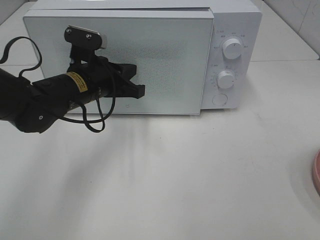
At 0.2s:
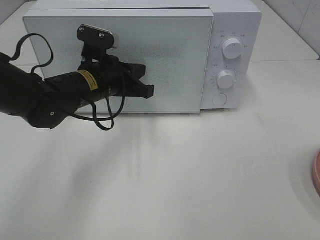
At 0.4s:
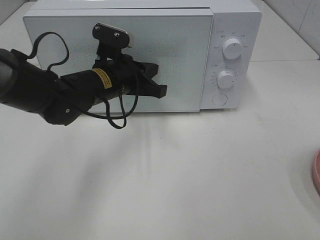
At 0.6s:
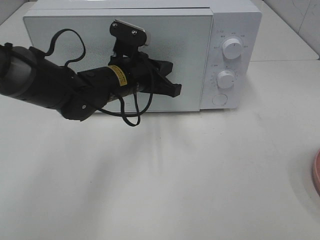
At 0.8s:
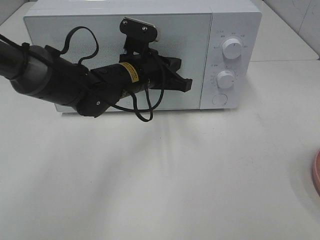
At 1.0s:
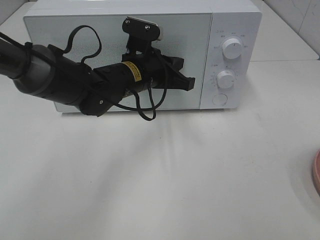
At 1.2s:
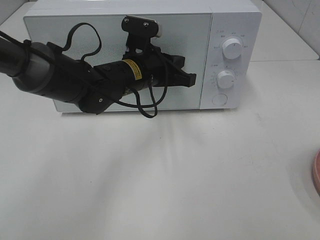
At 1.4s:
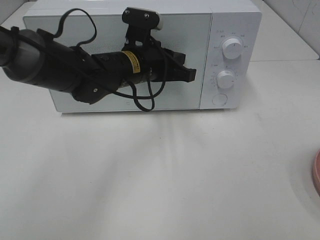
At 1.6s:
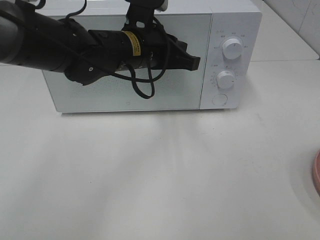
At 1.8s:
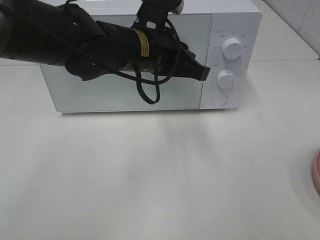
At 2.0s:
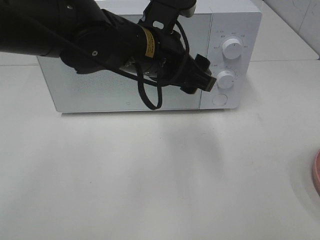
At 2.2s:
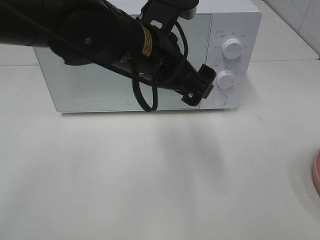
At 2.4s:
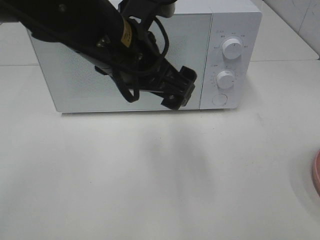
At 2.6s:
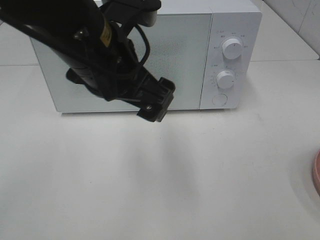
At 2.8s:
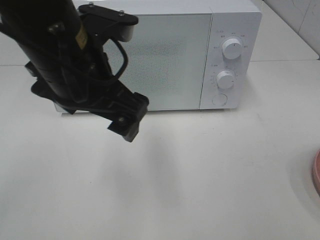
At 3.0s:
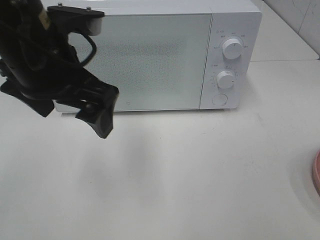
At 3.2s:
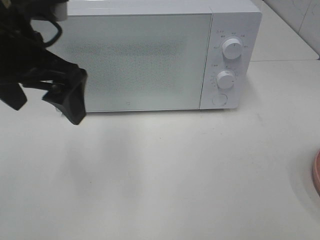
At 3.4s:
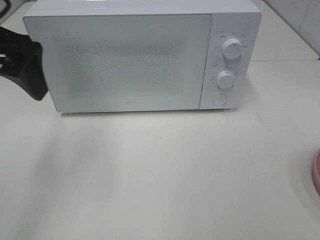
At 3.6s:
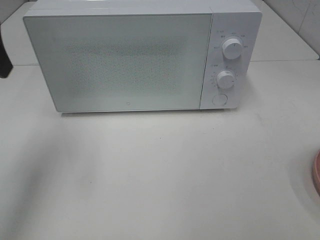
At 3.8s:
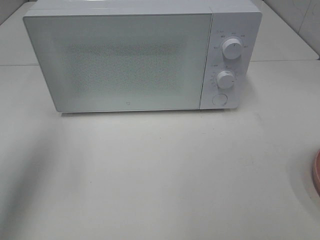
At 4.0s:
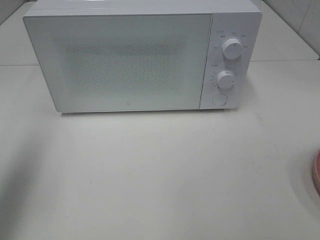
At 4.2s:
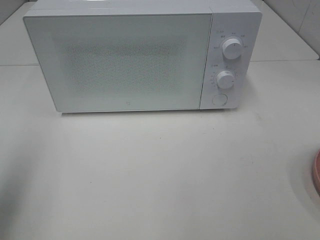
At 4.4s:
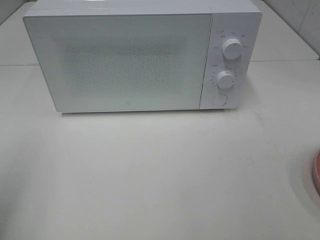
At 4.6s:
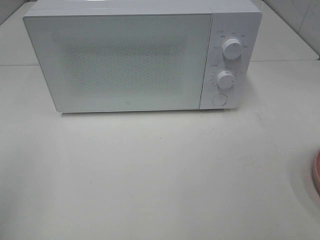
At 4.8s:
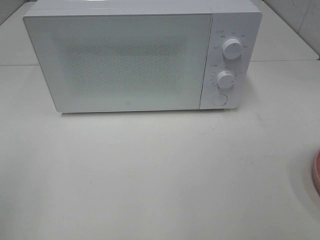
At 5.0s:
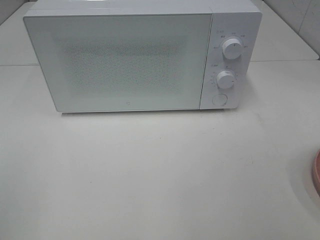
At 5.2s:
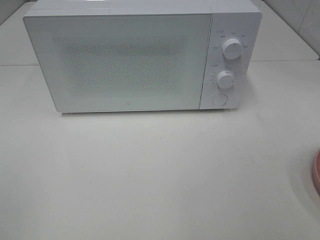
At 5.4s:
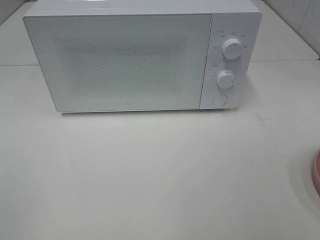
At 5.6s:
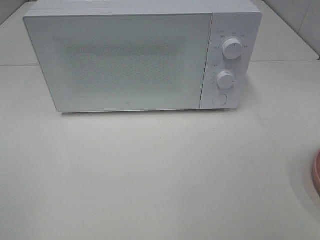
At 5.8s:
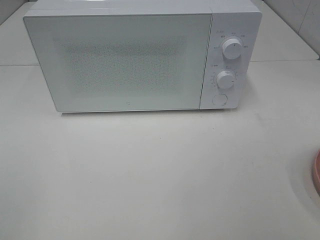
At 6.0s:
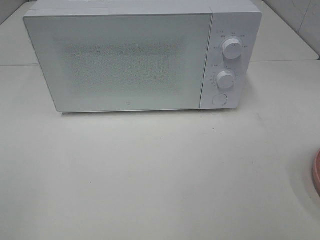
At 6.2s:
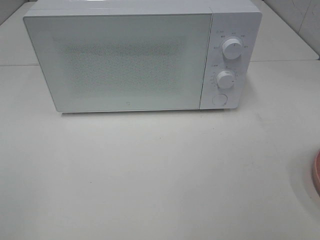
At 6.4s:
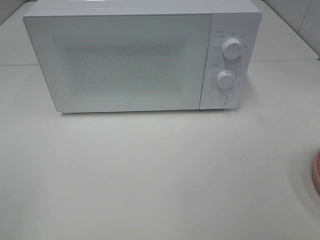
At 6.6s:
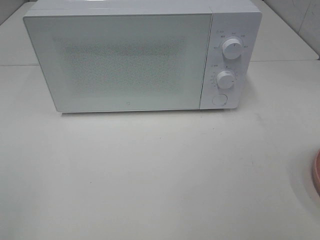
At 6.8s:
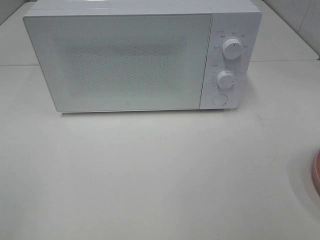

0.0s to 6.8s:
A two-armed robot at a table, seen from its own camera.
Task of the whole recording: Heat the burger.
0.0s to 1.4s: The left gripper heads to the right, covering about 10 cm.
1.4s to 2.8s: The left gripper heads backward, upward and to the left, covering roughly 15 cm, and opens up.
2.8s to 4.0s: The left gripper moves to the left, roughly 25 cm.
4.0s to 5.4s: The left gripper shifts approximately 20 cm backward.

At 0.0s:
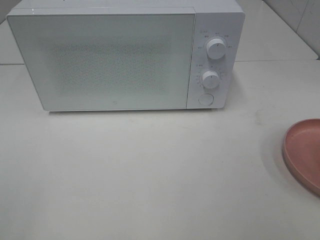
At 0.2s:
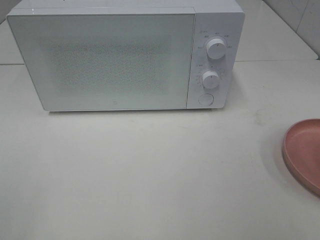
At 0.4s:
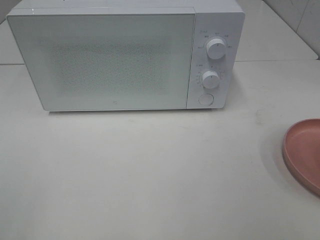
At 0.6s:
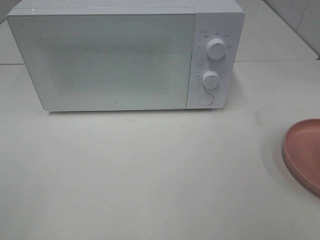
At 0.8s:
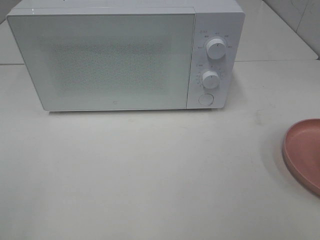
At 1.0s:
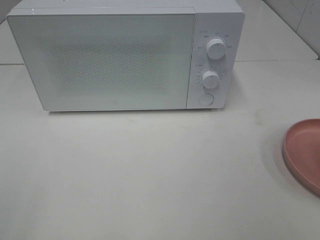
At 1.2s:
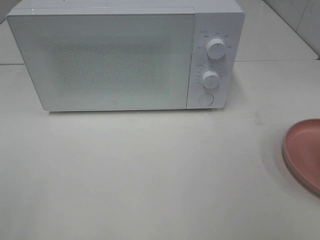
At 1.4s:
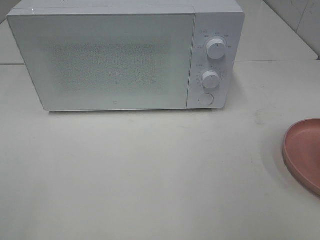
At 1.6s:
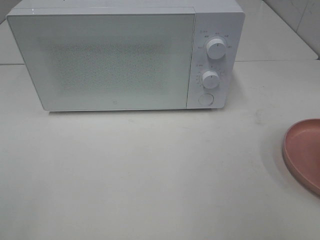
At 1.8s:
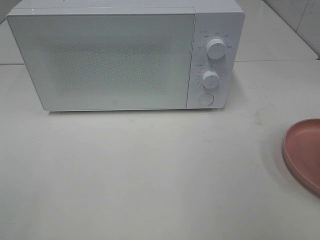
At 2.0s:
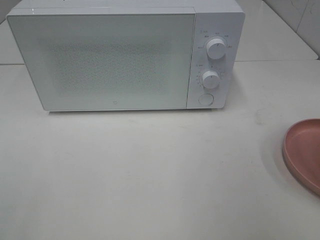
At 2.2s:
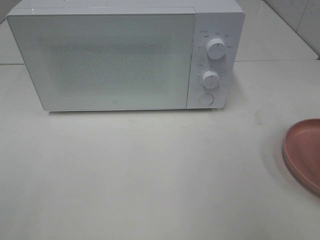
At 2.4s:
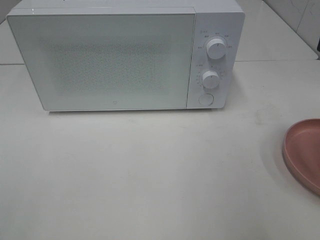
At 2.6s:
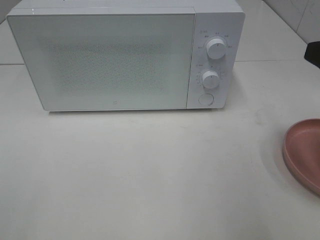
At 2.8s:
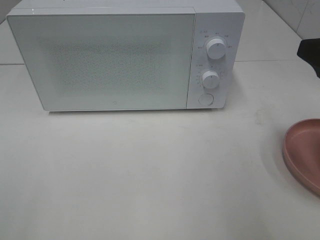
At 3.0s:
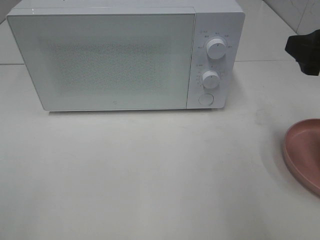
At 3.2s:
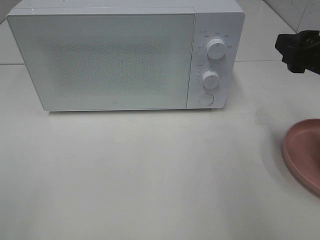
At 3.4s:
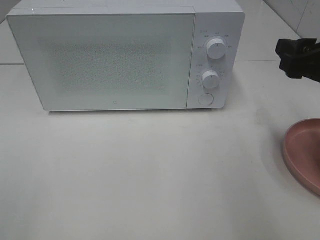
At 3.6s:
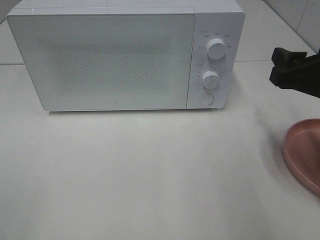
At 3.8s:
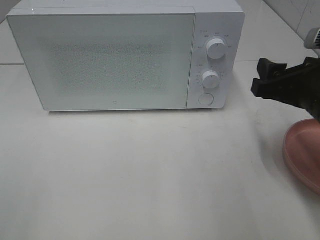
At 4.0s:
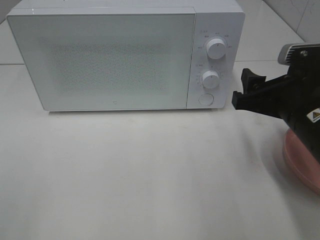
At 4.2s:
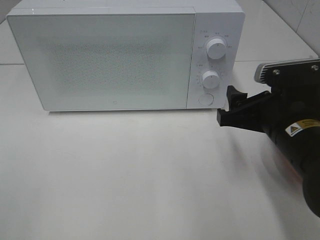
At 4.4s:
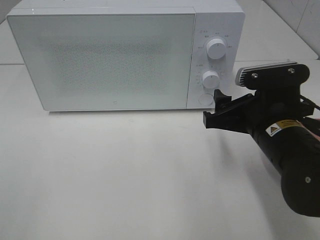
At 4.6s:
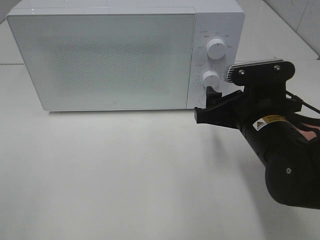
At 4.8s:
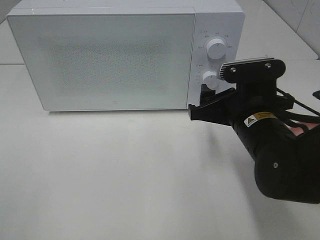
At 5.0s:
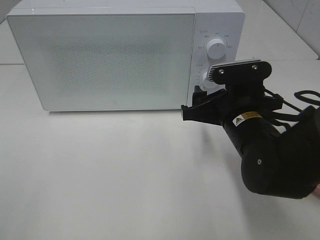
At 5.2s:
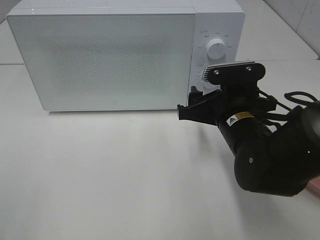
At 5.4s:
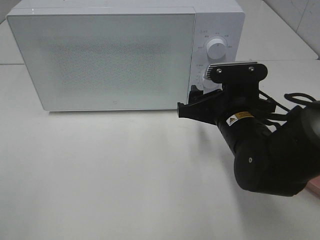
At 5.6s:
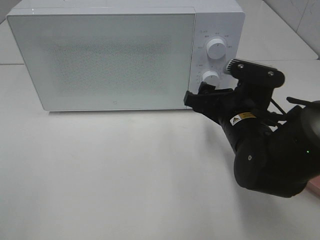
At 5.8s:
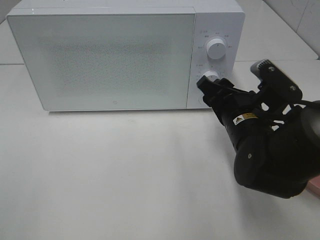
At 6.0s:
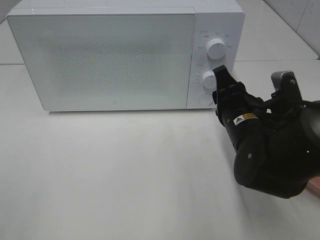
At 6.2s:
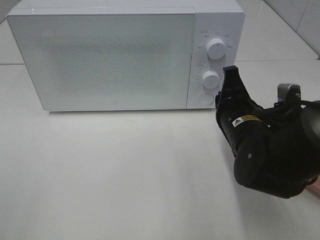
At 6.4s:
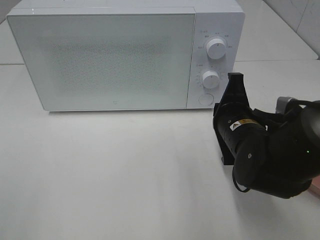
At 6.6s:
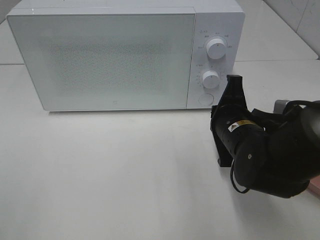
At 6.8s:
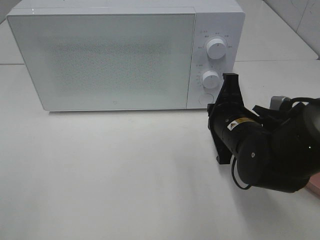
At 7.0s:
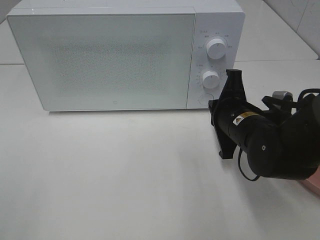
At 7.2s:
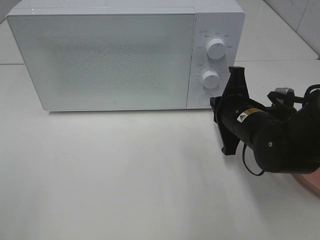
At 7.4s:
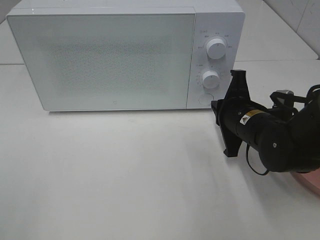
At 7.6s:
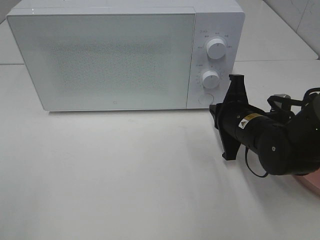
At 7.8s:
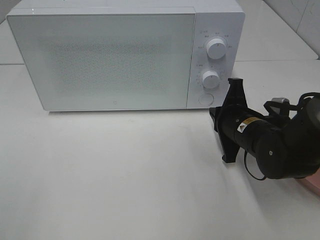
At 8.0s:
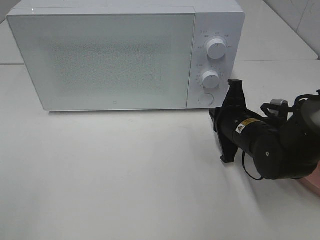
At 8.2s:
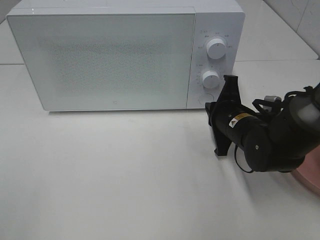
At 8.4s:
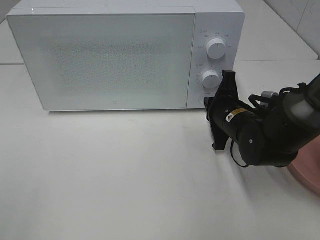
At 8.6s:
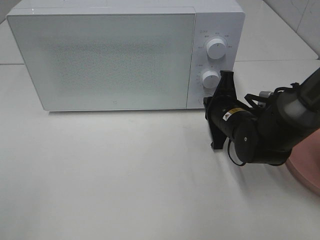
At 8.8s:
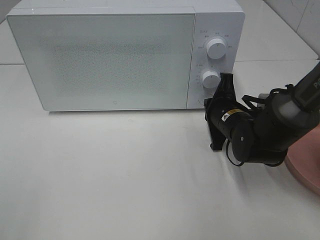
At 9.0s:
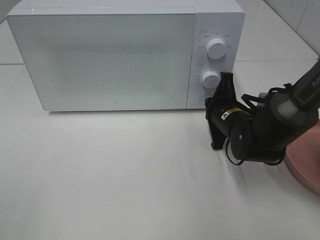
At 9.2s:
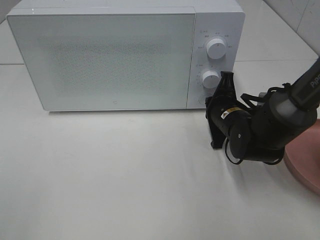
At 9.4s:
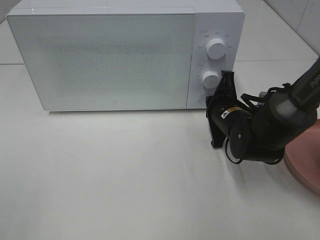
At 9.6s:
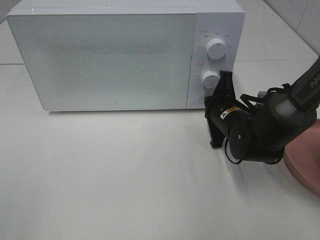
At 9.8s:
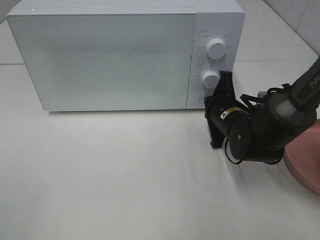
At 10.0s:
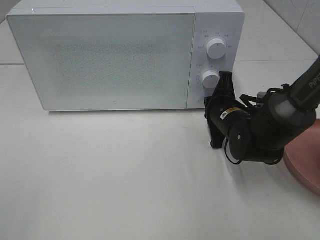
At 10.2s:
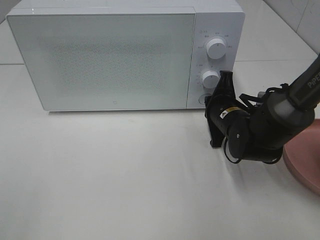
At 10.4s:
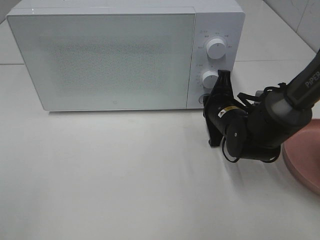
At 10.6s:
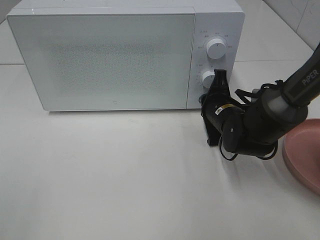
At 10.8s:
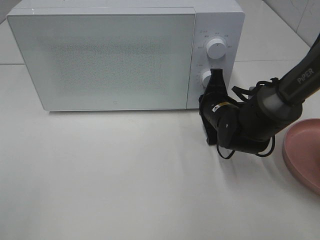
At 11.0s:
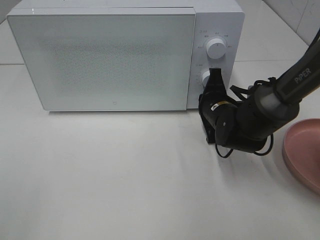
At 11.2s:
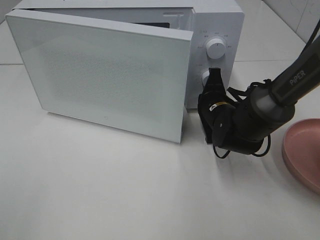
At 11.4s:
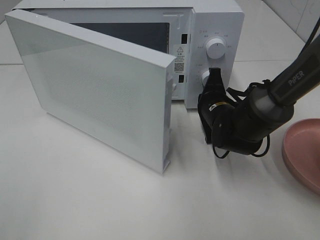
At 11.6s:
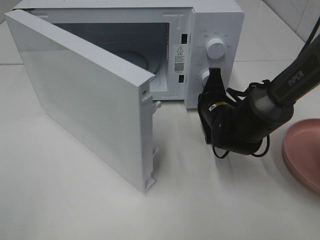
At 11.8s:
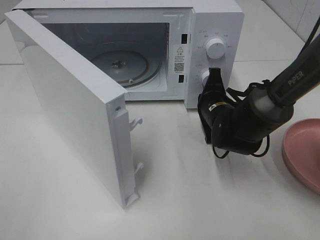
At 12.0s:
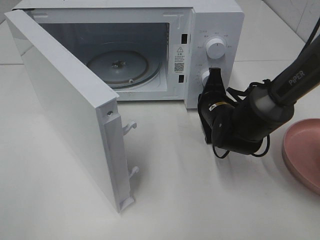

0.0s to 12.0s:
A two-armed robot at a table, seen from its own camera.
Task of the whole recording: Heat the burger.
1.6s to 3.0s: The right gripper shifts approximately 15 cm forward.
3.0s to 4.4s: The right gripper moves downward and to the left, about 15 cm.
4.4s to 6.0s: The right gripper closes up.
6.0s to 7.6s: The right gripper closes up.
7.6s to 9.0s: The right gripper moves approximately 5 cm.
9.0s to 10.4s: Neither gripper changes place.

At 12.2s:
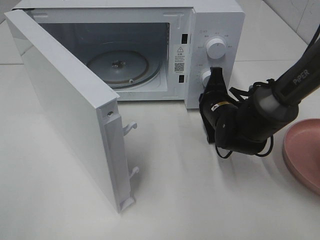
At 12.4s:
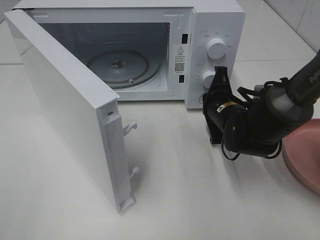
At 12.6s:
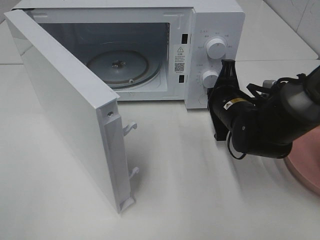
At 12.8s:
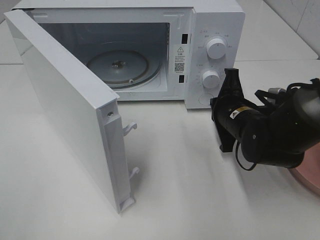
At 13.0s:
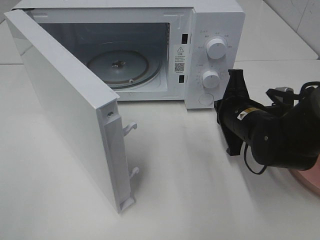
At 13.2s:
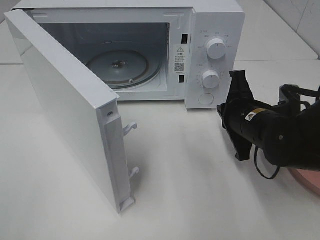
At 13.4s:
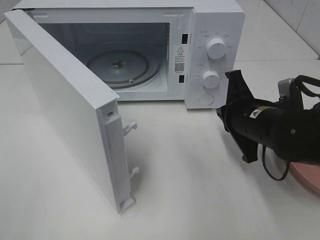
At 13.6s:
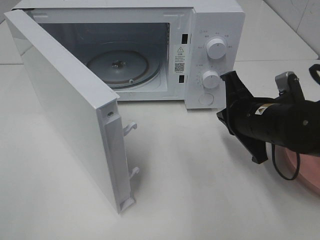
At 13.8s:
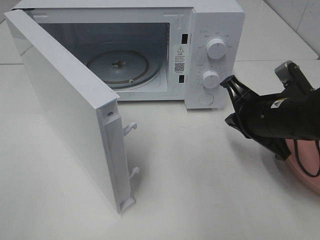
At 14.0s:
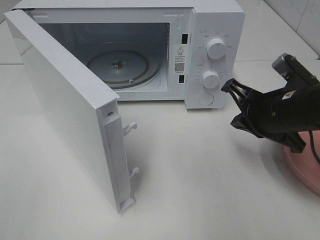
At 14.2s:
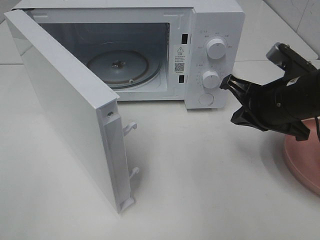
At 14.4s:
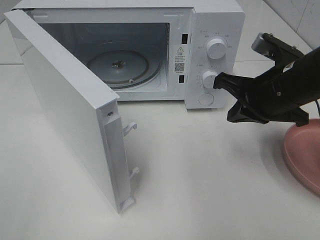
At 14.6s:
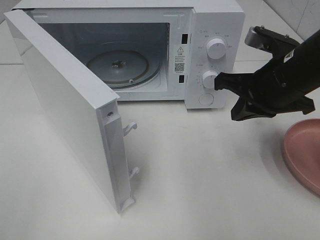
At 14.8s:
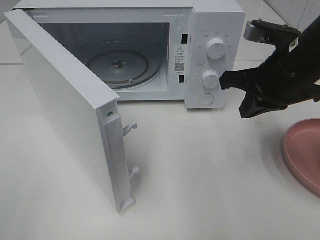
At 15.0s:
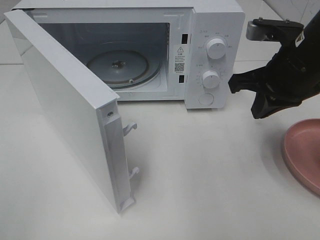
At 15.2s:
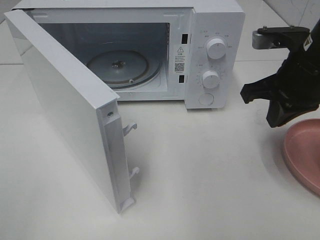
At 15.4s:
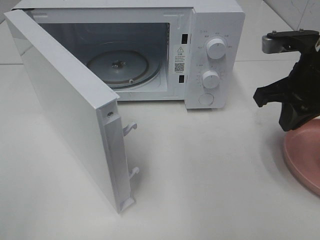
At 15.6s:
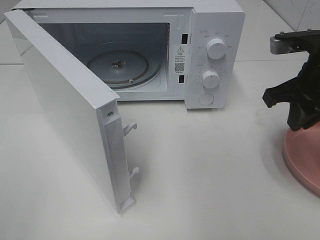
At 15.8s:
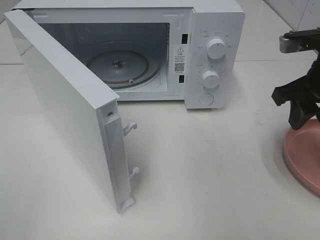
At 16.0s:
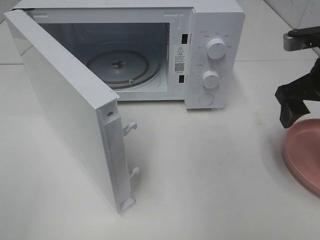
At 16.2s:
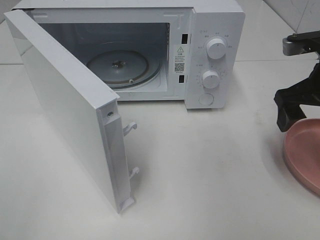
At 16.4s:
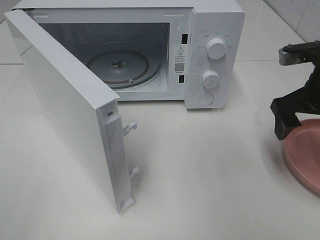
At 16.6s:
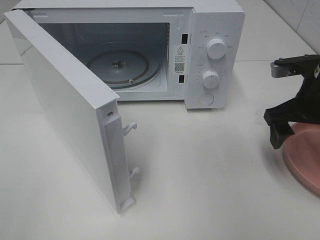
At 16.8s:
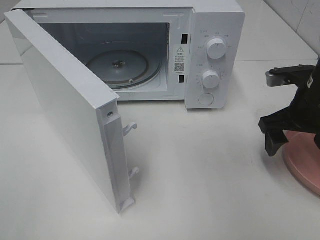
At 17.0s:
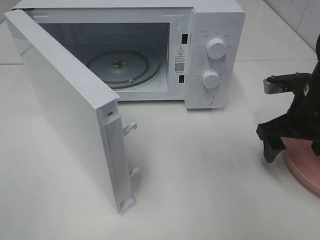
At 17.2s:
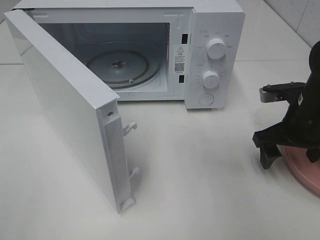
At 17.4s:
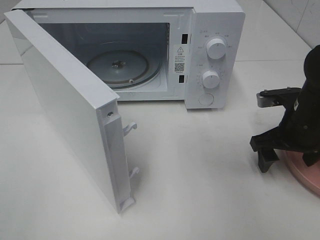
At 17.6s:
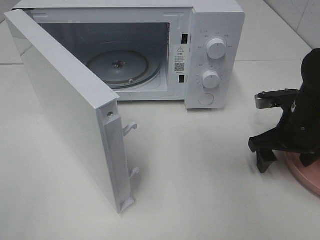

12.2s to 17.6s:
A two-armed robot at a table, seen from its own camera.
Task of the whole recording: Heat the burger.
12.2s to 13.6s: The right gripper heads backward and upward, covering approximately 10 cm.
13.6s to 15.0s: The right gripper is displaced upward by about 10 cm.
15.0s to 16.2s: The right gripper goes approximately 5 cm to the right, and opens up.
16.2s to 17.6s: The right gripper is displaced downward by roughly 10 cm.
